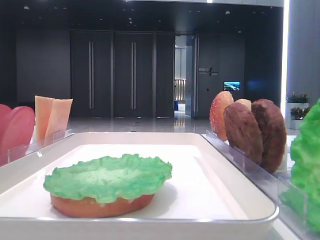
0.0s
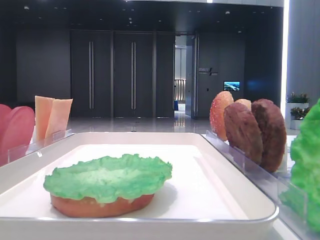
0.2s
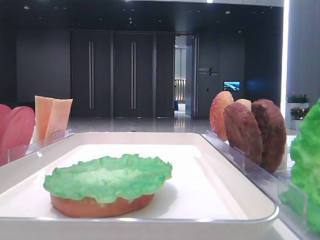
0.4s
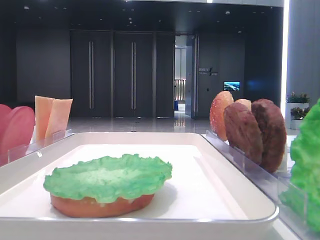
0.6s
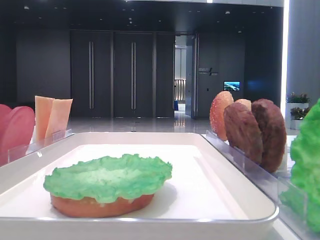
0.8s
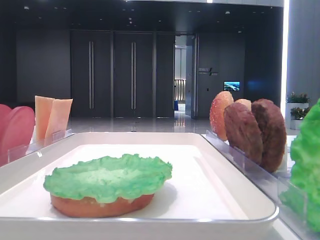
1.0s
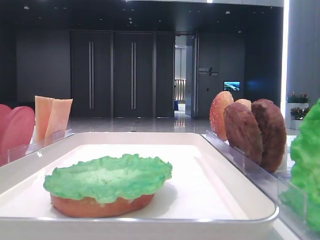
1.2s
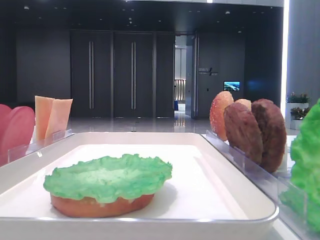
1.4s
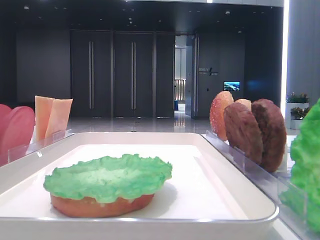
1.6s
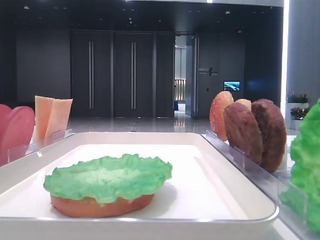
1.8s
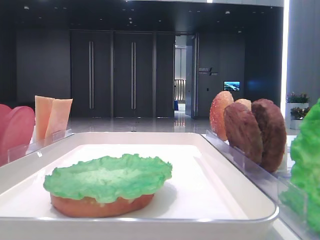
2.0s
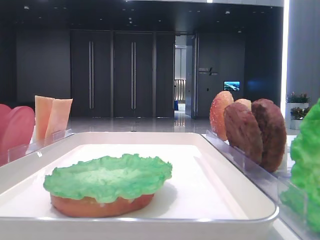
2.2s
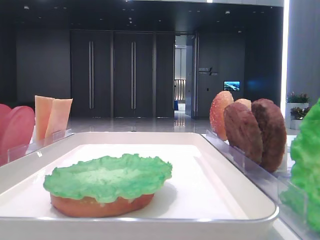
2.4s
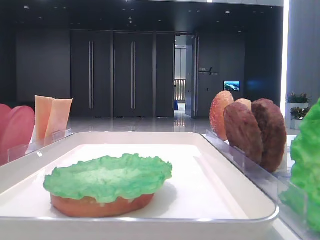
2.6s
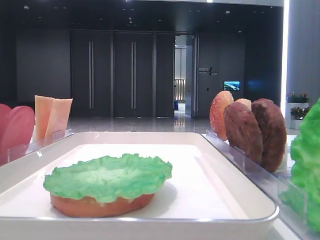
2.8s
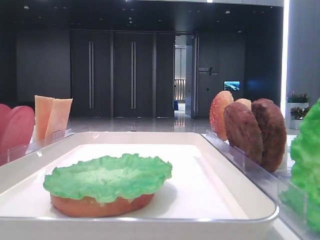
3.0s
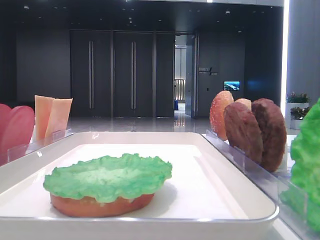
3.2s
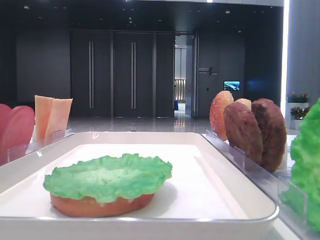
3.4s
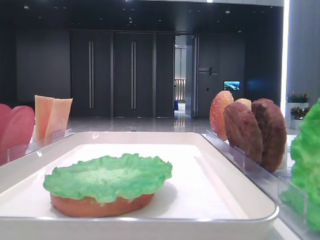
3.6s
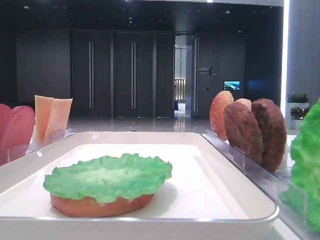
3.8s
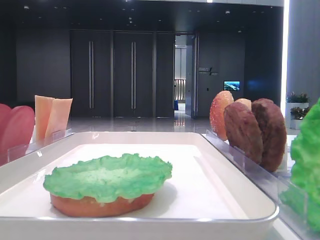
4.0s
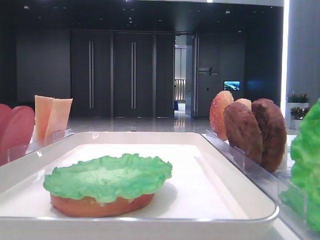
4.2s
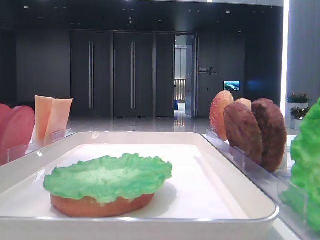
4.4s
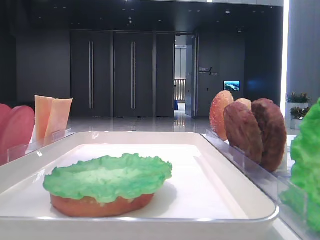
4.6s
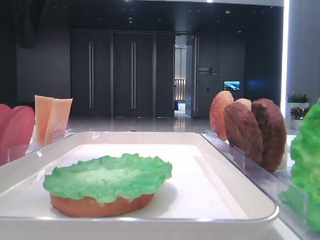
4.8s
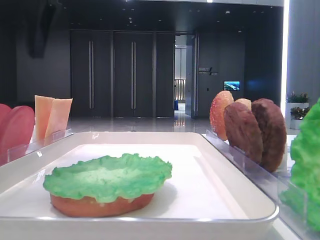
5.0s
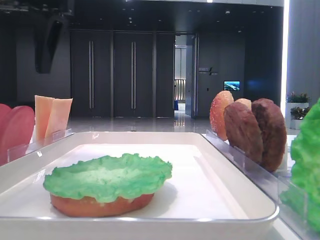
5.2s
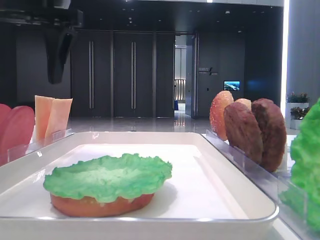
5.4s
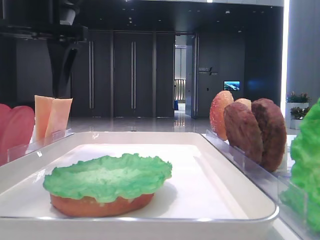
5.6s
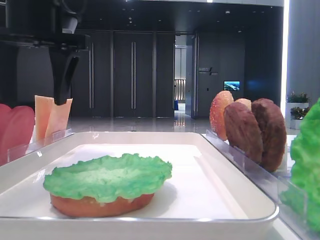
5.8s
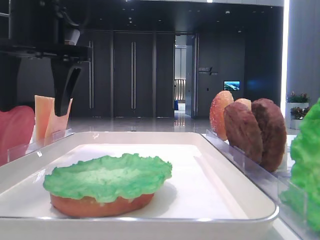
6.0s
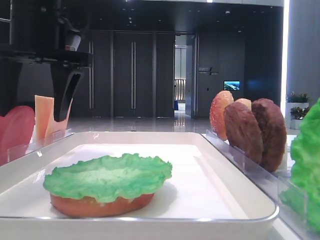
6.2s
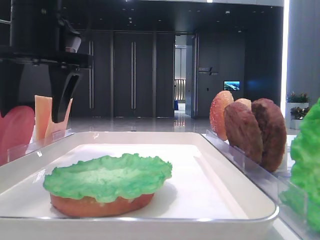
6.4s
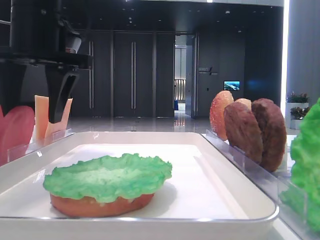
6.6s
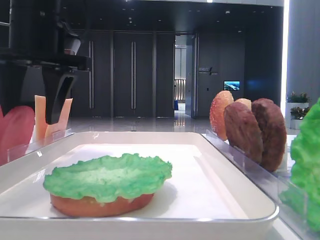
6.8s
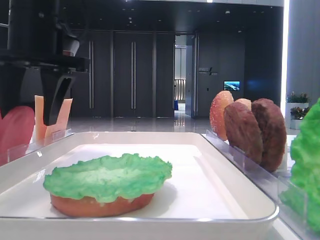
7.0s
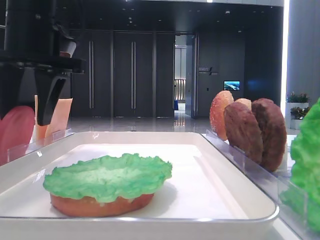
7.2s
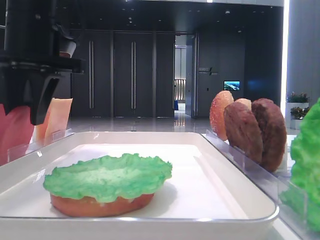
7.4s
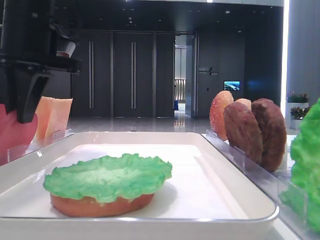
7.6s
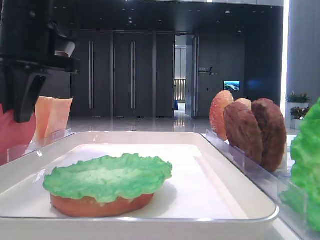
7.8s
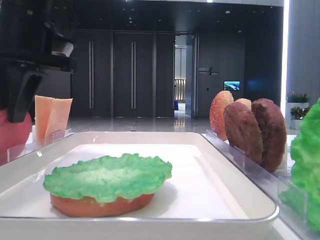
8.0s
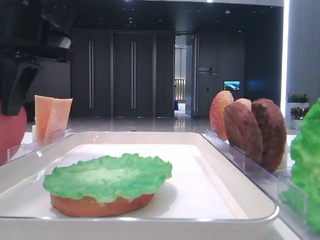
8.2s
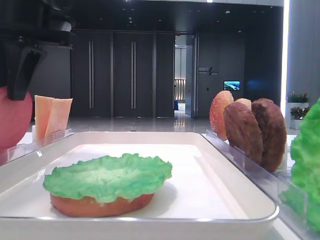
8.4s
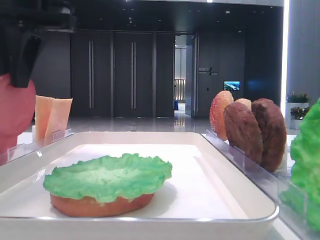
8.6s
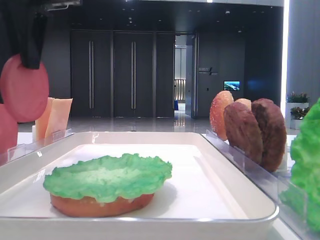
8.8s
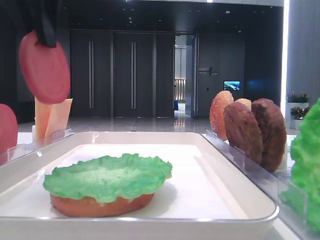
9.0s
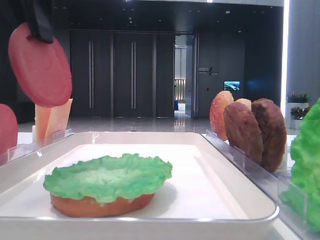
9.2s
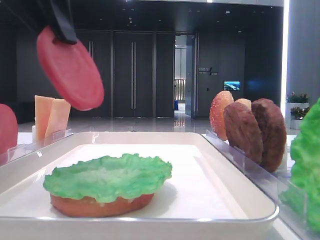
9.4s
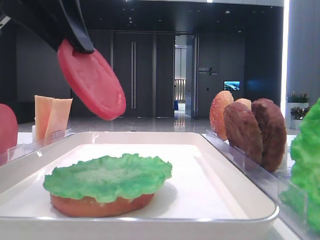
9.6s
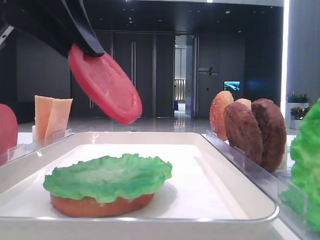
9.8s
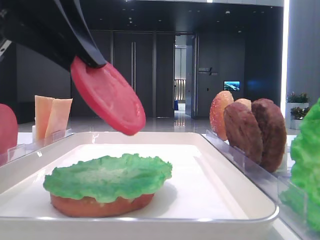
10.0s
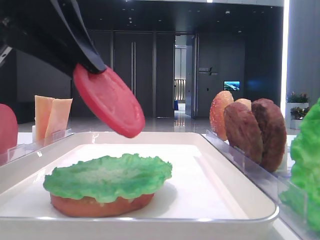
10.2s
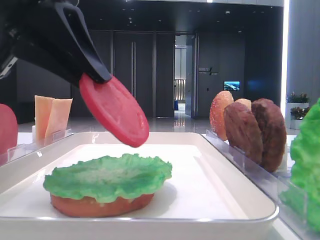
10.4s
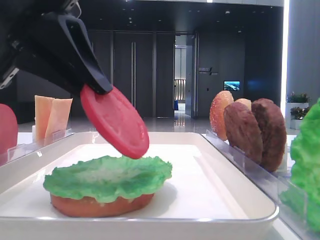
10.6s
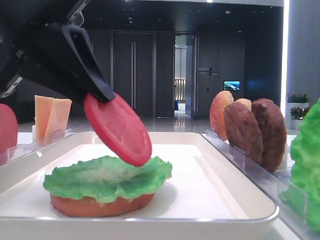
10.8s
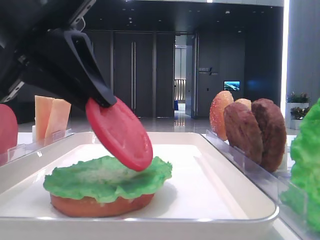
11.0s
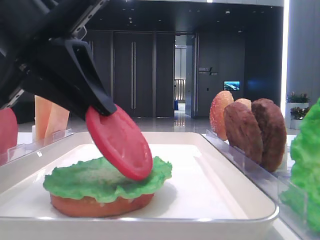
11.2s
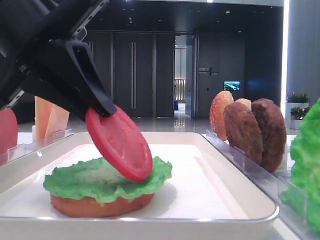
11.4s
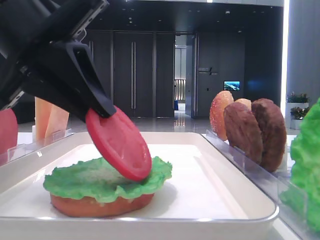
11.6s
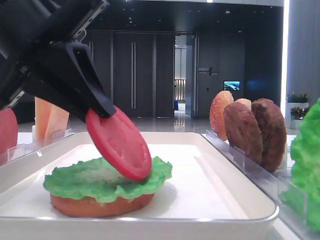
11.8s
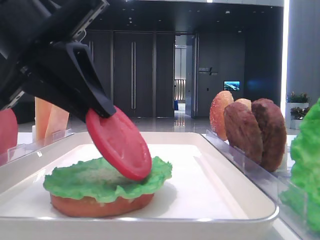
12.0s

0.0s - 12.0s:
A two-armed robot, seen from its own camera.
Step, 0.0s - 8.4s: Pick up the tomato slice with the left hand.
3.0s - 4.4s: The left gripper is displaced to the right by some 10 cm.
4.4s - 6.0s: The left gripper moves downward and to the right, about 10 cm.
6.0s - 7.6s: The left gripper closes.
7.6s - 9.0s: The left gripper shifts approximately 10 cm upward.
9.0s - 10.4s: The left gripper is displaced downward and backward by about 10 cm.
10.4s - 12.0s: The grippers stay close to where they were, moving slightly.

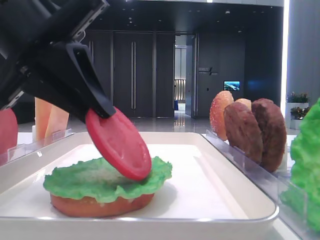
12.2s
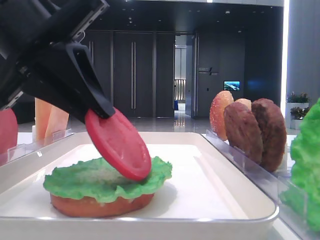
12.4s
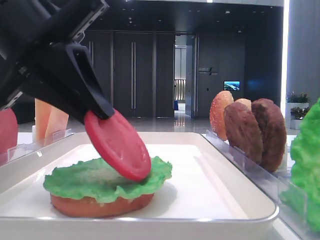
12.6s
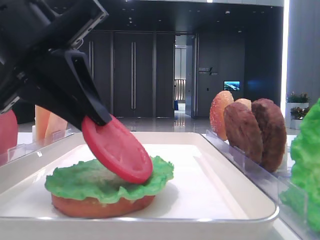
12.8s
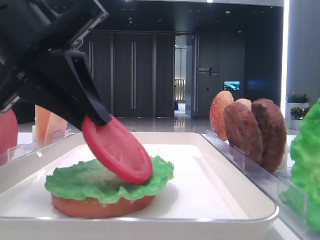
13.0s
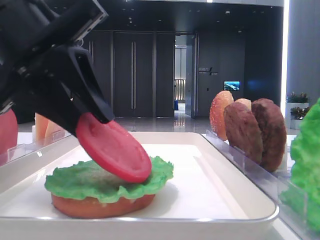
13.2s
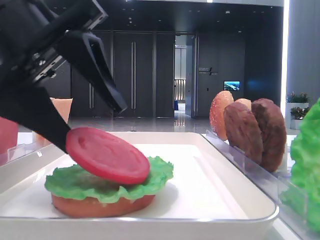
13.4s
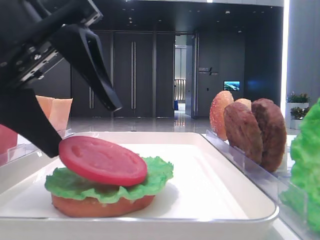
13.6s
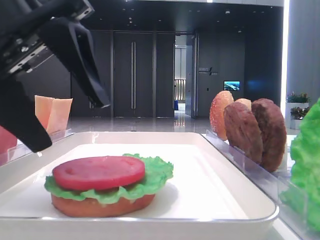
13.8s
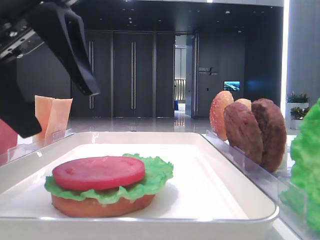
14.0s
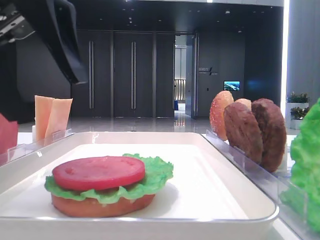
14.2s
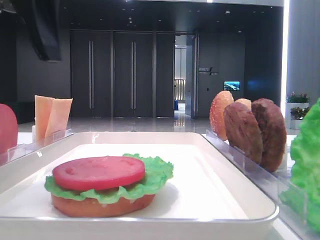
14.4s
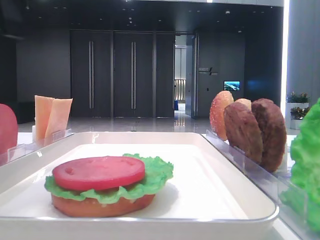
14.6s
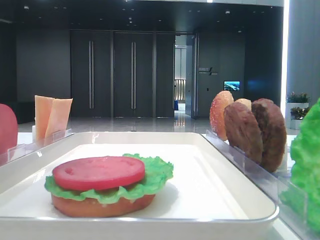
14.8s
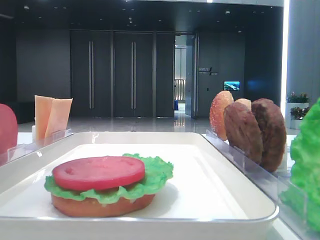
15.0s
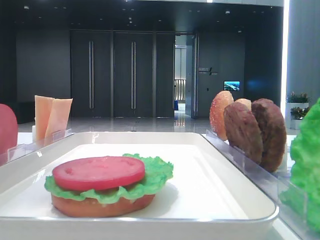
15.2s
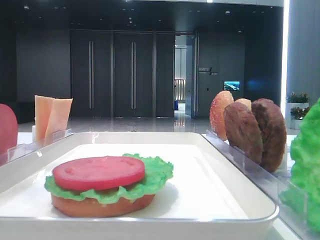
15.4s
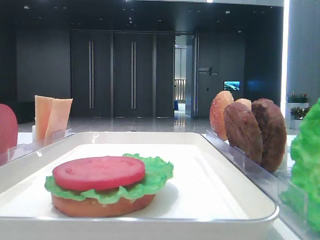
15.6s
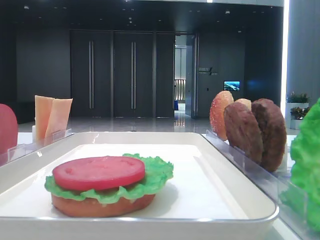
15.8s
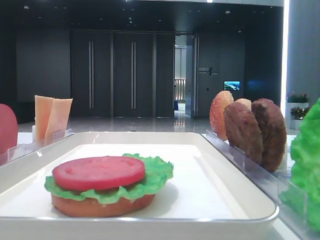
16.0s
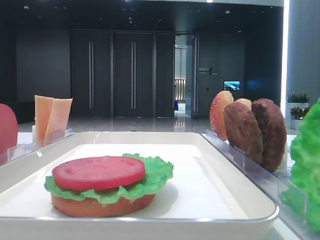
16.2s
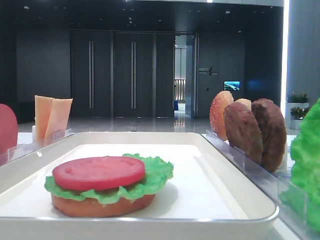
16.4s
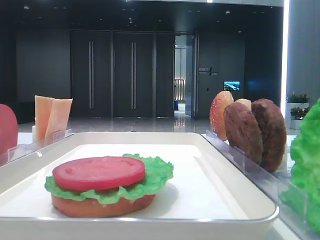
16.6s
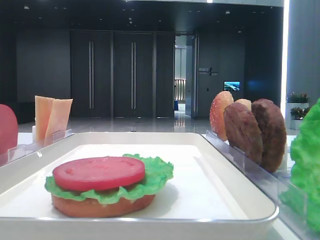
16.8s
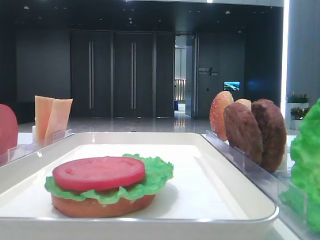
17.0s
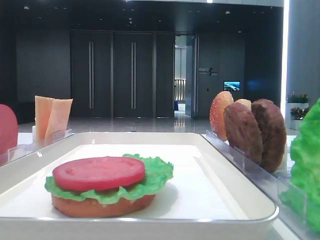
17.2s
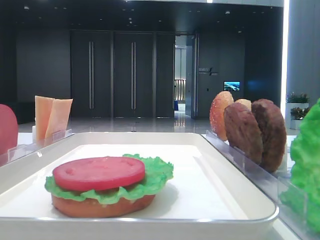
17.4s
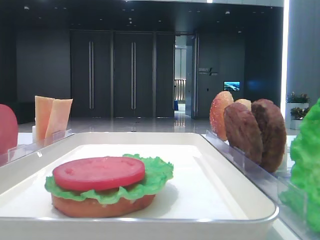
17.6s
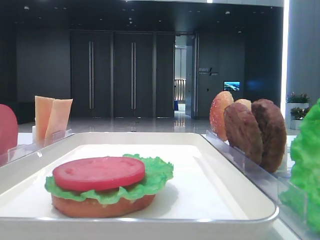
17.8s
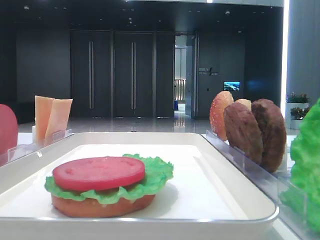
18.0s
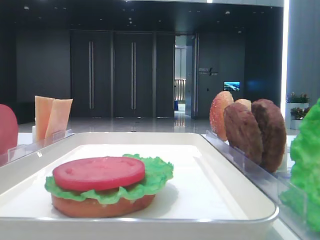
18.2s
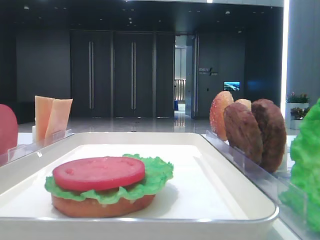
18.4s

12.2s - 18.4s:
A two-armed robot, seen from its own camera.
12.2s - 13.8s: The left gripper opens its fingers.
13.8s - 15.4s: The left gripper travels upward and to the left by about 15 cm.

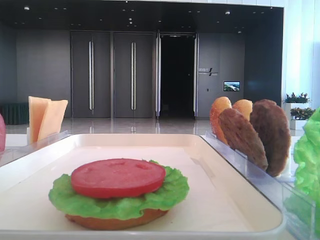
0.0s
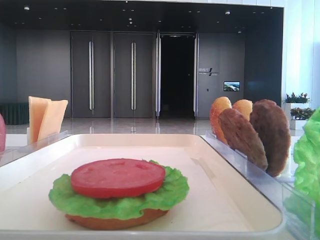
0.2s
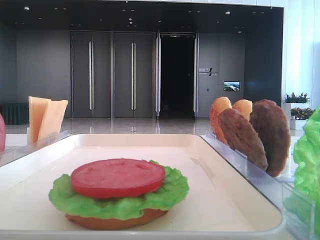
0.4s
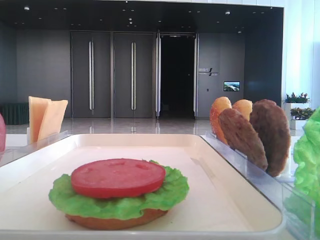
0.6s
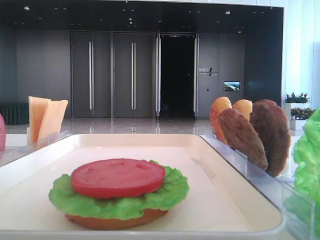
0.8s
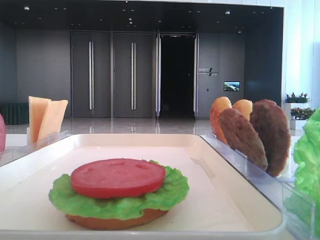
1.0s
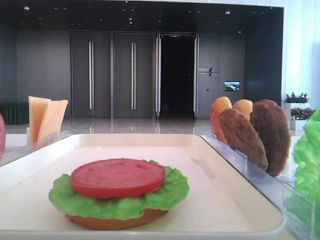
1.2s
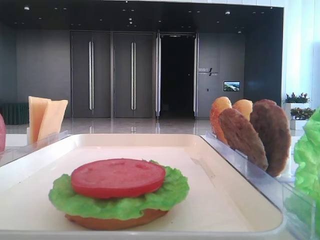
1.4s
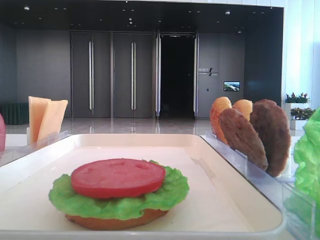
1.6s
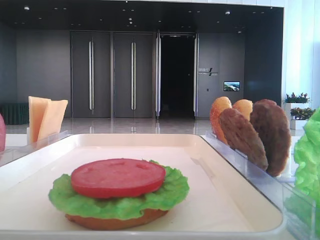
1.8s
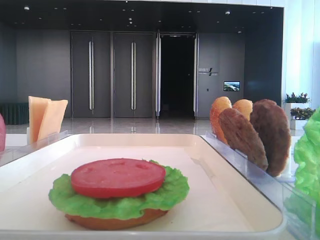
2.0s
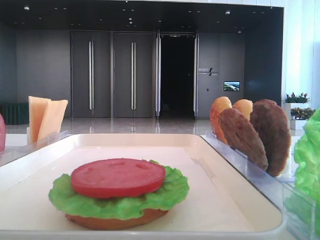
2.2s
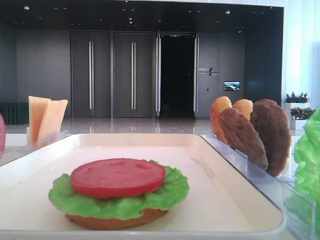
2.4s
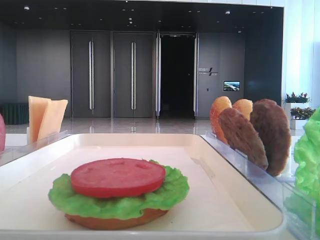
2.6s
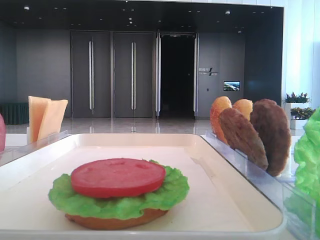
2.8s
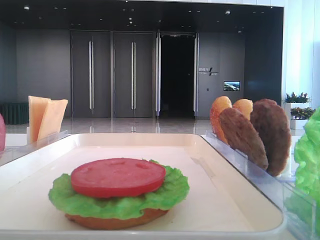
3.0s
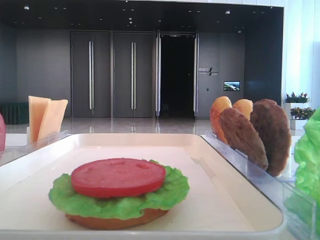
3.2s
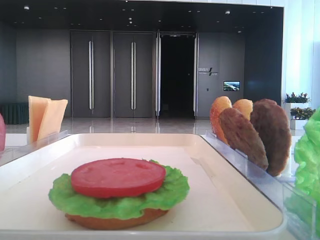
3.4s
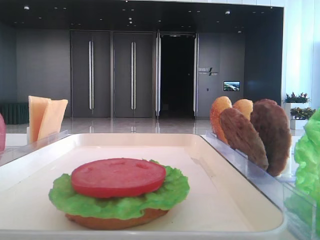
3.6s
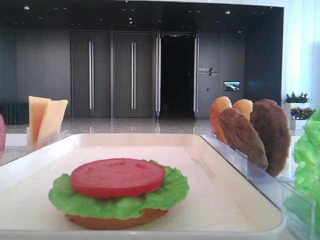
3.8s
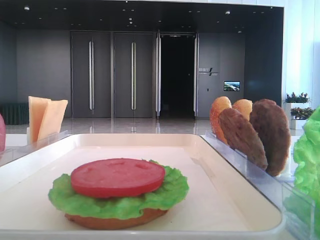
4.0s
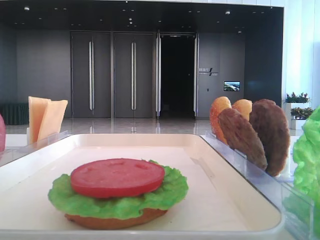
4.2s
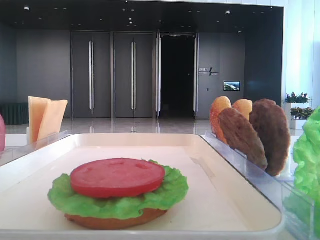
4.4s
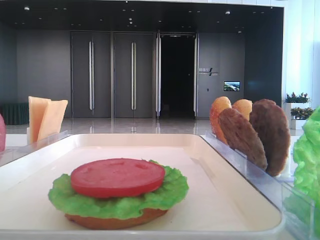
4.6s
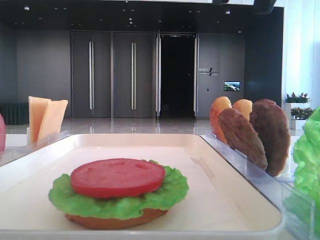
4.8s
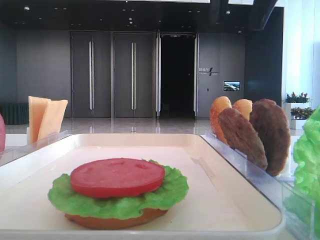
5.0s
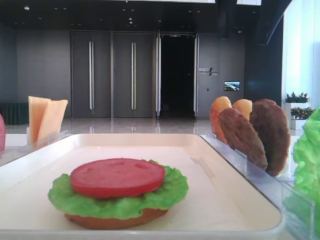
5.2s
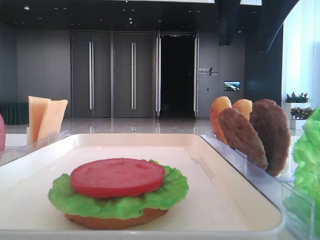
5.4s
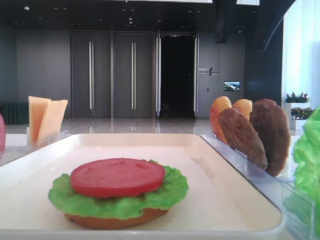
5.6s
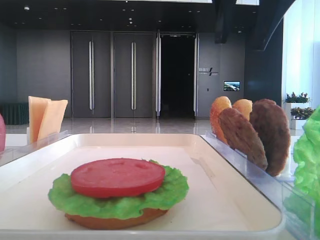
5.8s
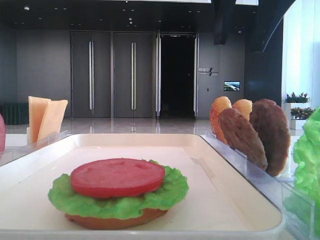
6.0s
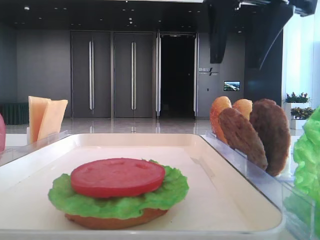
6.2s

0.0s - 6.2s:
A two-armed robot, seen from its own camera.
3.2s - 4.6s: The right gripper travels to the left by about 15 cm.
4.6s - 6.2s: The right gripper goes approximately 10 cm forward.
